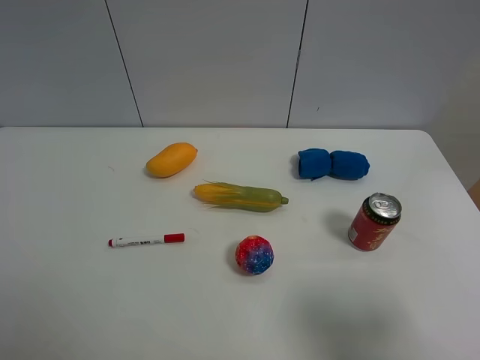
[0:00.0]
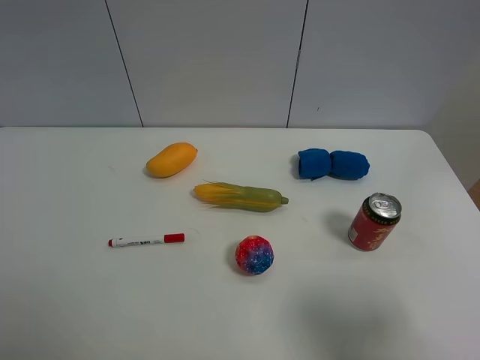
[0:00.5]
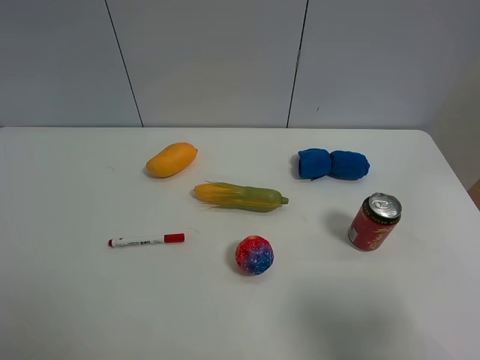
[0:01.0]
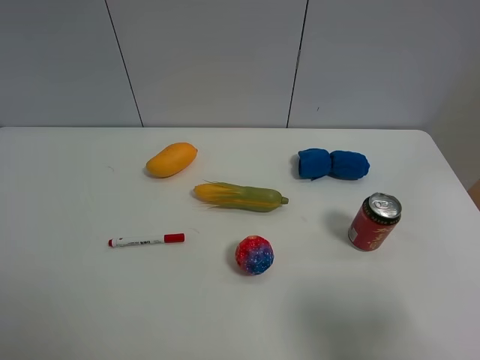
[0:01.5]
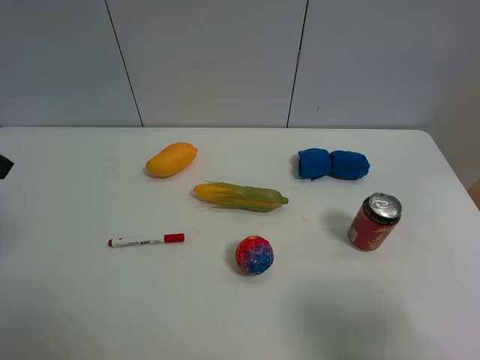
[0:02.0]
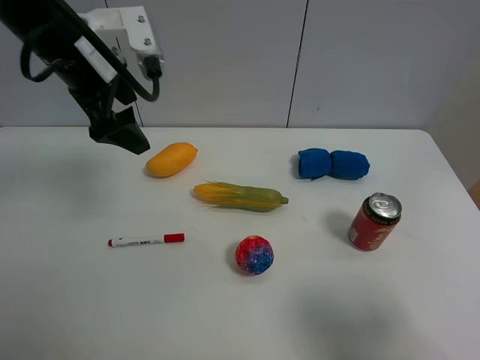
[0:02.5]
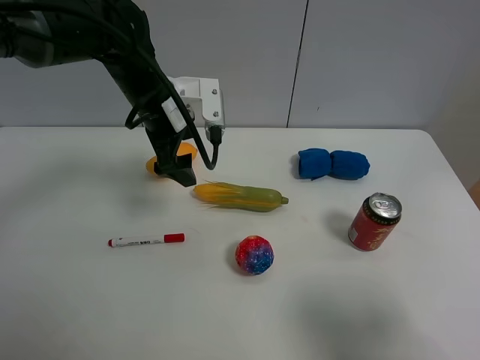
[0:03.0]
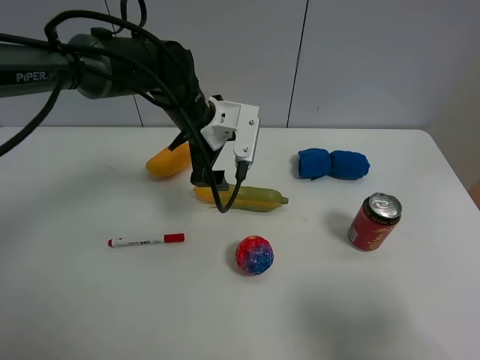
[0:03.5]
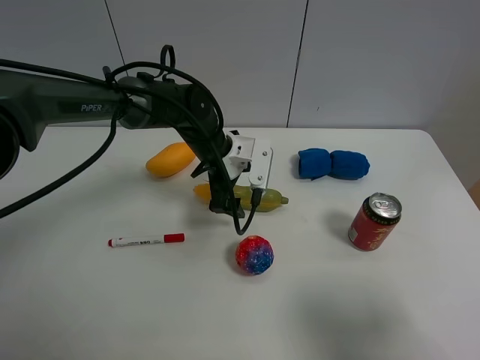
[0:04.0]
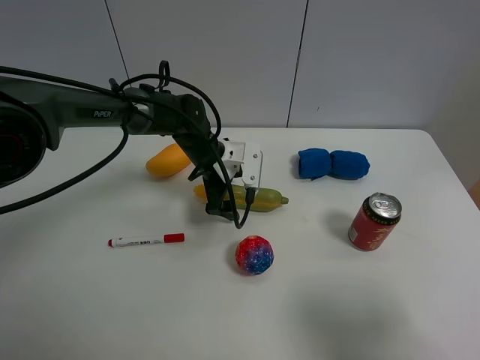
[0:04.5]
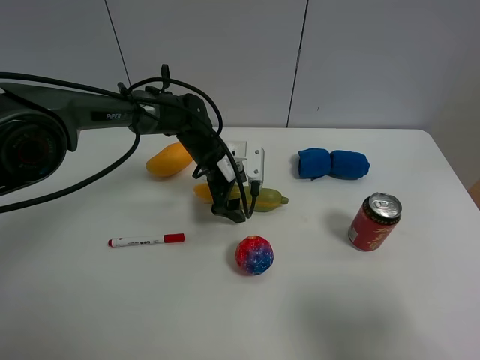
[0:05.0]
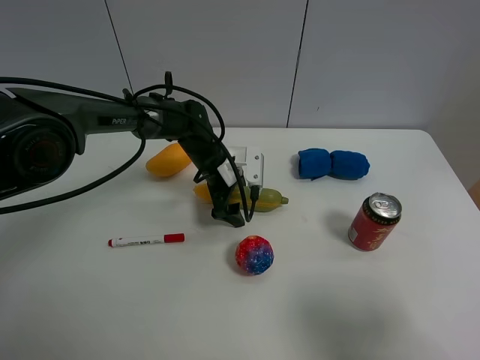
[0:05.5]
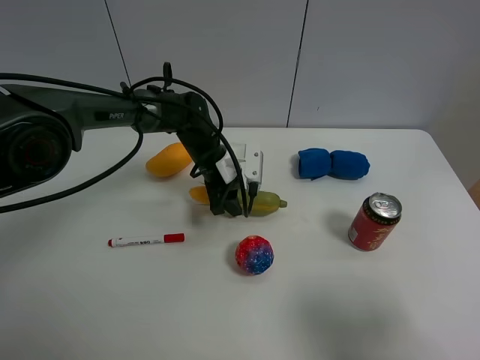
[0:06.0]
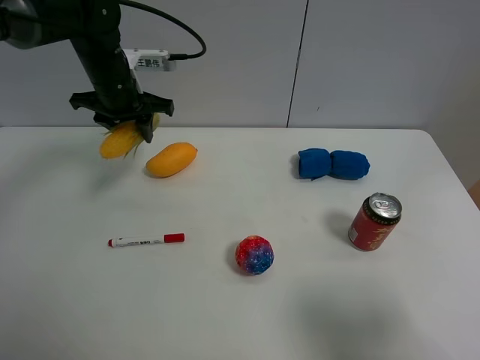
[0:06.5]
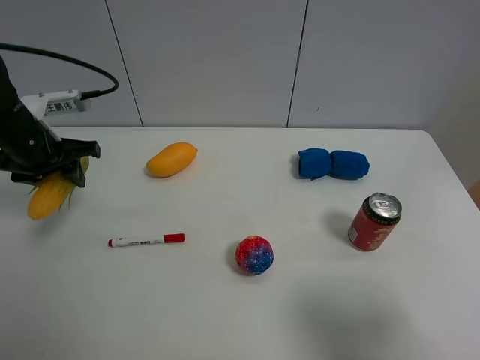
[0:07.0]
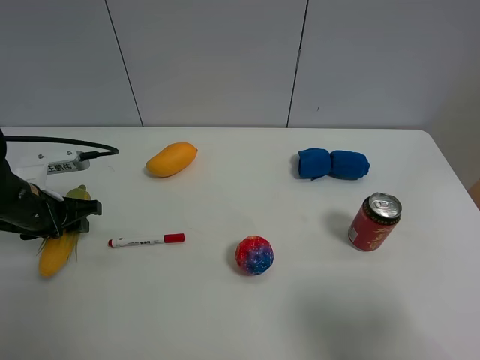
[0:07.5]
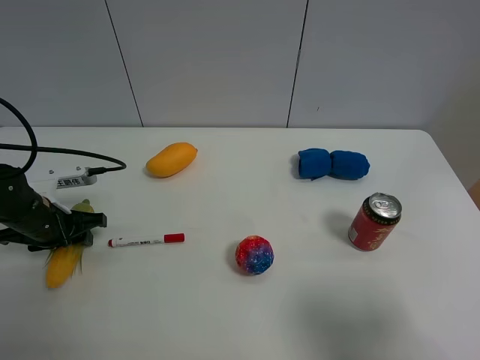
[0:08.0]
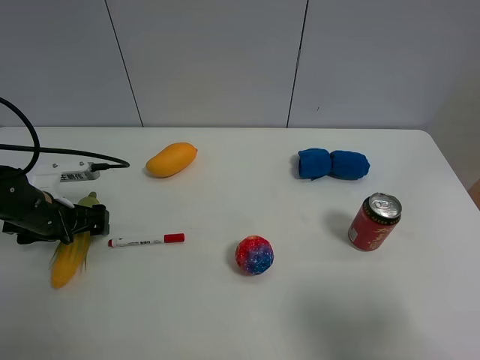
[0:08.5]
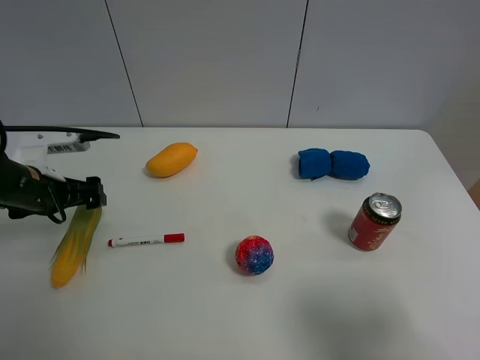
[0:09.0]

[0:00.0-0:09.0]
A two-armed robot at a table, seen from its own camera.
Task of the whole recording: the gripper move the object.
Step, 0:00.0 to 0:05.5: Grasp the corn with the left gripper.
Step, 0:06.0 to 0:08.5: Place the corn on the table with the left gripper.
0:02.0 to 0:04.5: The left gripper moves downward, to the right and forward, some 40 cm.
0:04.5 to 0:07.0: The left gripper heads to the left, covering approximately 25 cm, and closes.
0:07.0 to 0:09.0: The left gripper opens.

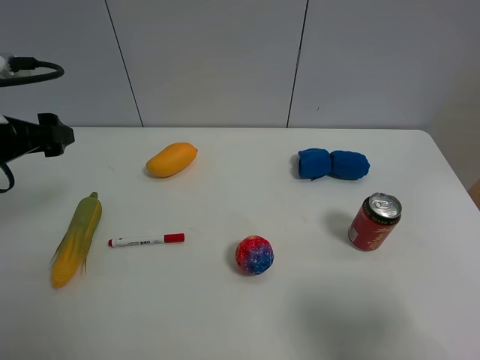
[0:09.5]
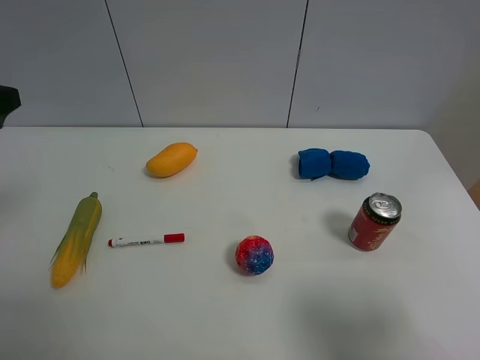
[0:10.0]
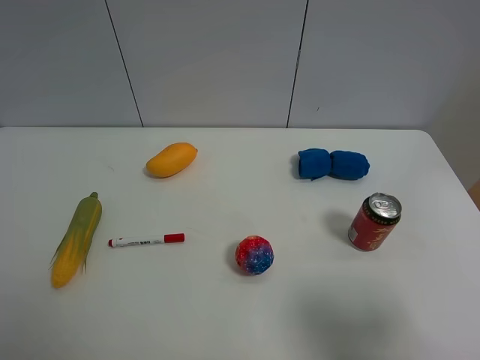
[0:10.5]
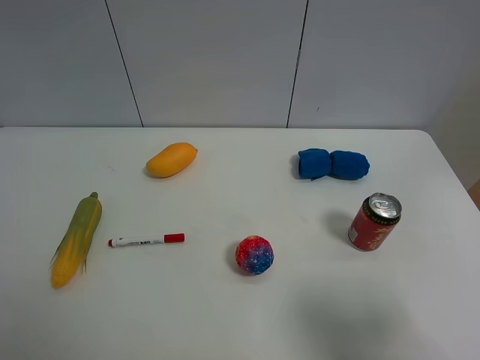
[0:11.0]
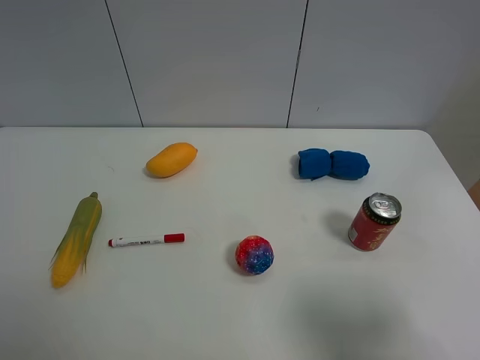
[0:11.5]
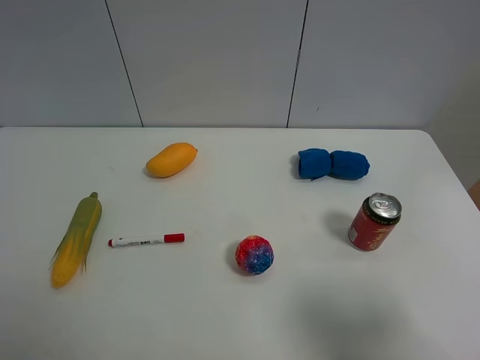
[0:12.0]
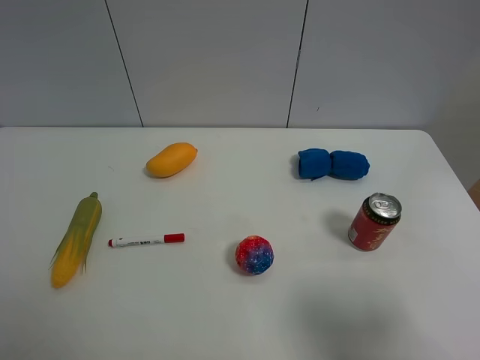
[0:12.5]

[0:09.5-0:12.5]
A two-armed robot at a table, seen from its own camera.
Task of the whole recording: the gripper move the object.
0:09.5 to 0:11.0: The left gripper heads backward, covering roughly 25 cm.

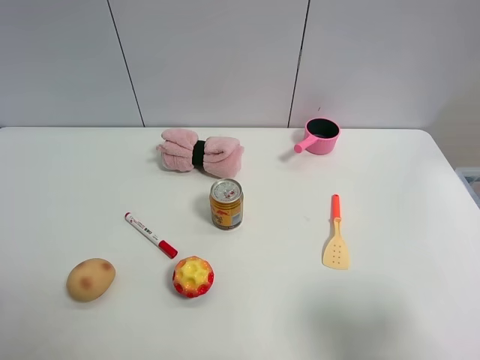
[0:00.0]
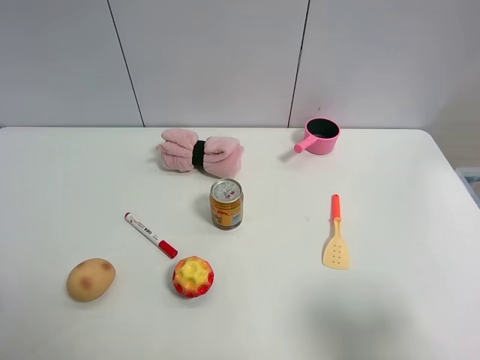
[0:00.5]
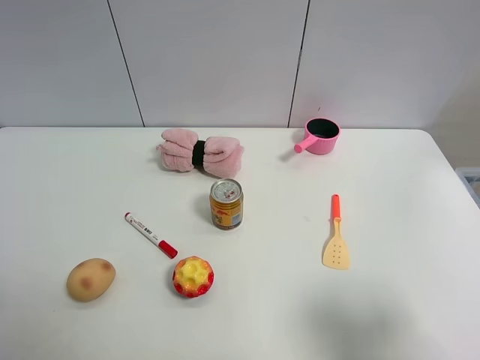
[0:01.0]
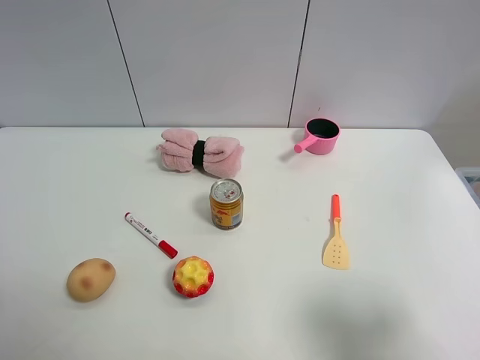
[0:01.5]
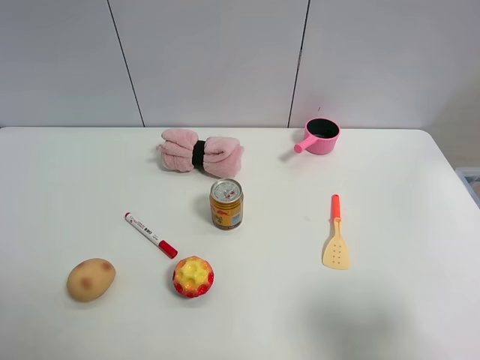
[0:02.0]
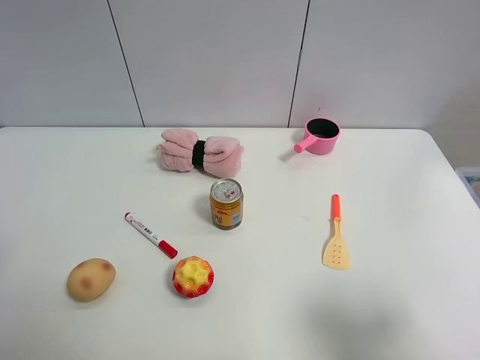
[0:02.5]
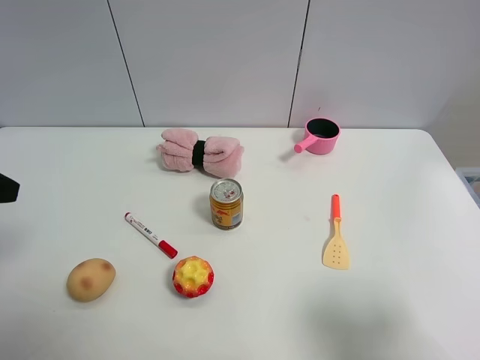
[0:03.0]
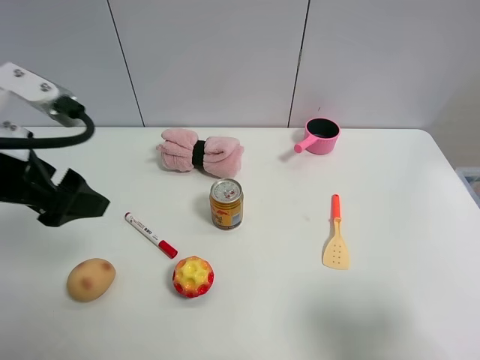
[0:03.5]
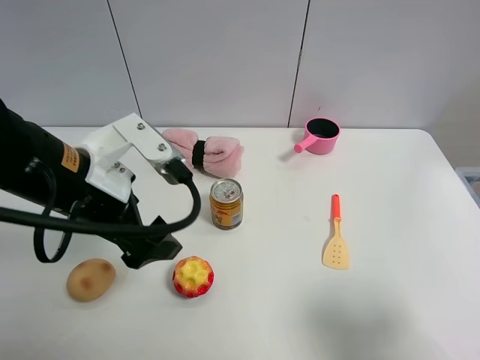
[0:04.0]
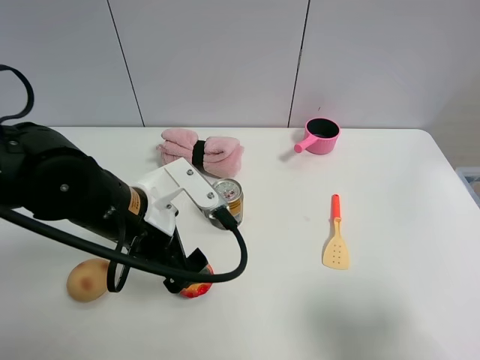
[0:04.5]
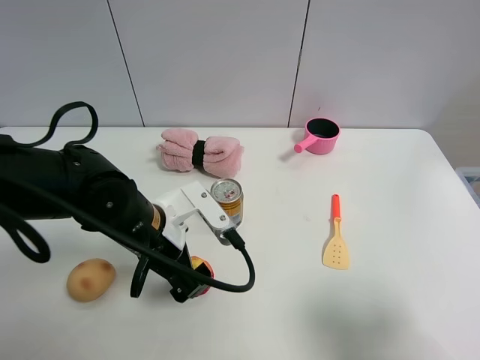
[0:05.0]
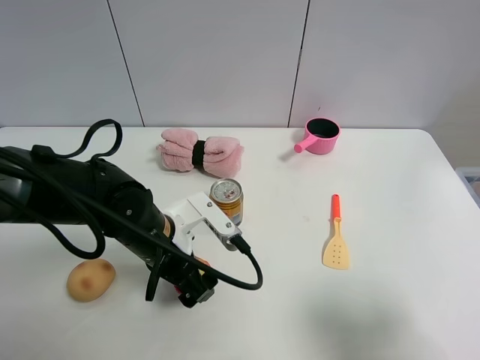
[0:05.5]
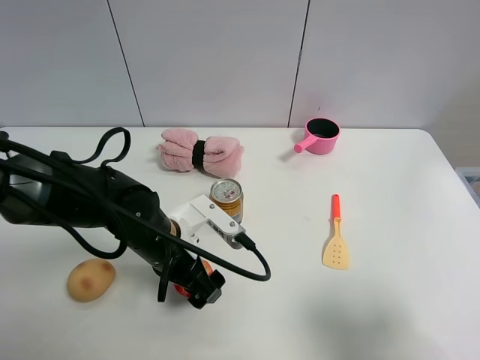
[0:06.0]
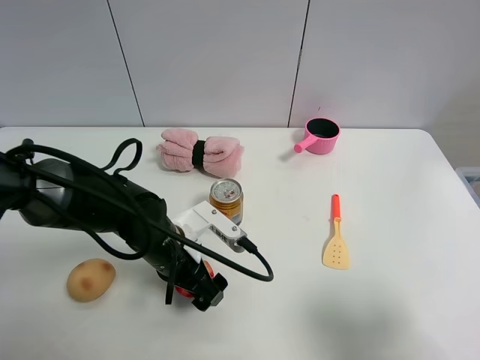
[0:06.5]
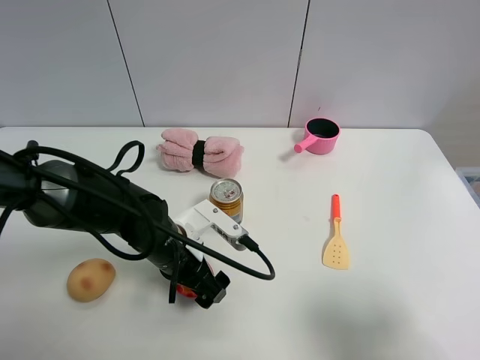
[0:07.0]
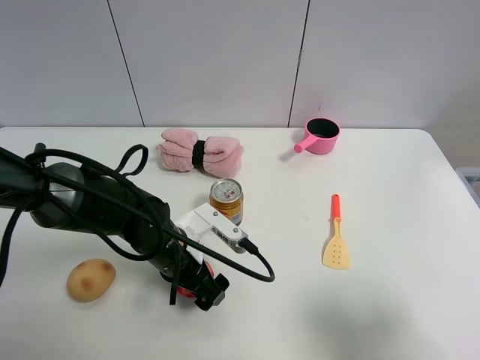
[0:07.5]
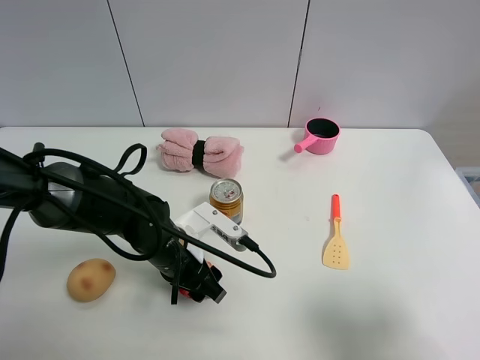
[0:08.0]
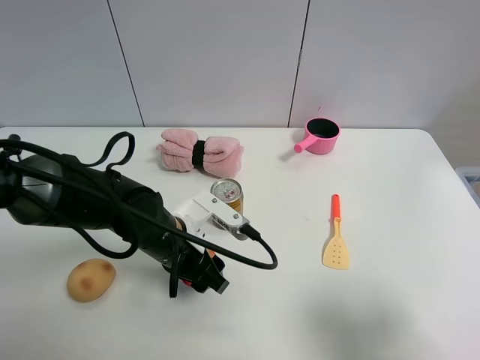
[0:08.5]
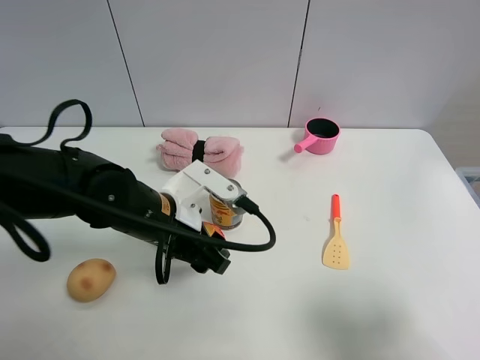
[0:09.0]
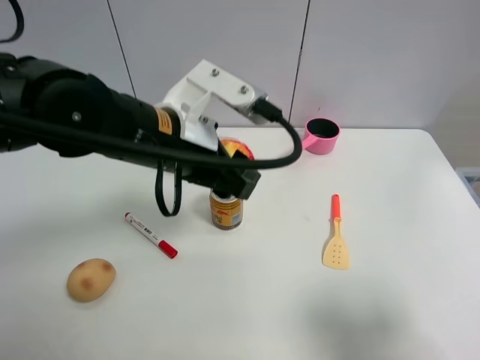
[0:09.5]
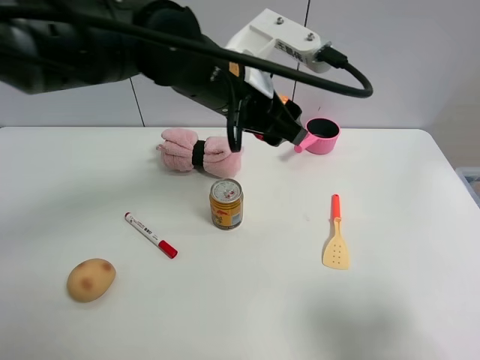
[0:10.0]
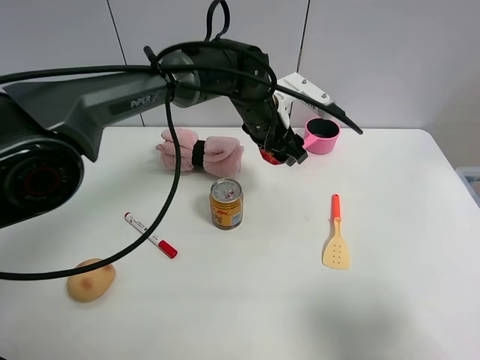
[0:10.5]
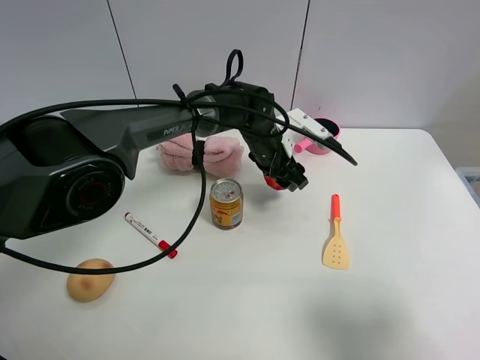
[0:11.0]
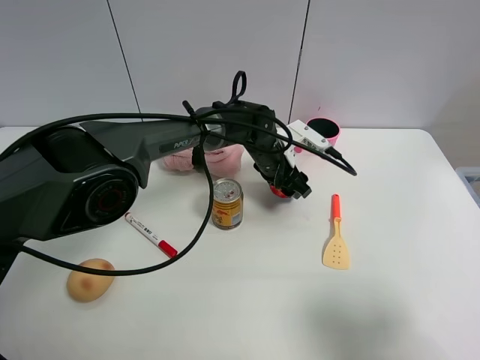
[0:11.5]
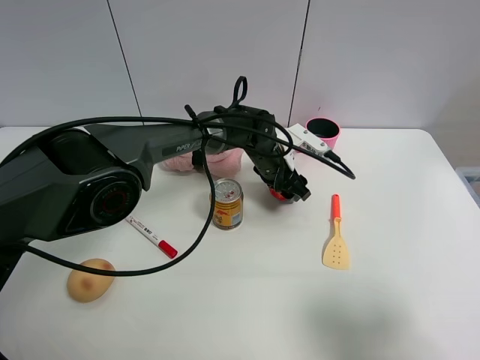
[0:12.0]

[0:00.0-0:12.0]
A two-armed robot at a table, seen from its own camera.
Task of the whole recording: the gripper move the object.
Step, 0:00.0 to 0:07.5: Grasp the colorful ball with the left gripper.
0:00.0 to 0:02.0: Both grippers stay about where they are.
0:02.0 to 0:04.0: The left gripper heads forward and to the right, covering some 25 cm.
0:04.0 to 0:06.0: The left gripper goes some 15 cm downward.
0:06.0 to 0:08.0: The left gripper closes its fingers.
0:08.0 to 0:10.0: The left gripper heads upward, to the right and forward, covering some 25 cm.
0:10.0 to 0:12.0: The left gripper travels downward and forward by approximately 20 cm.

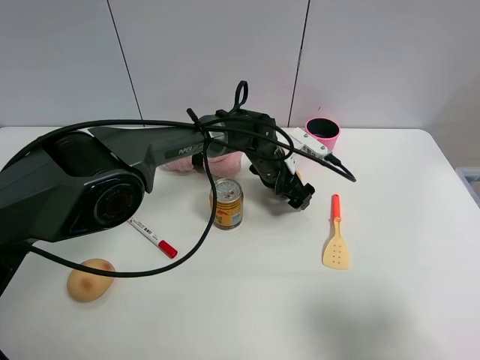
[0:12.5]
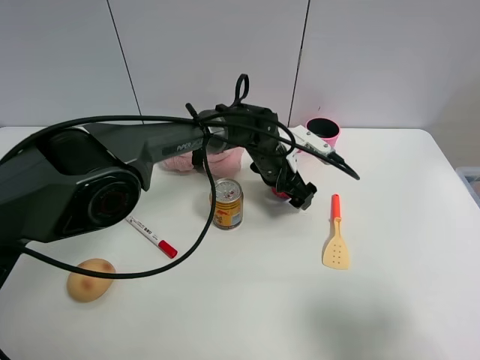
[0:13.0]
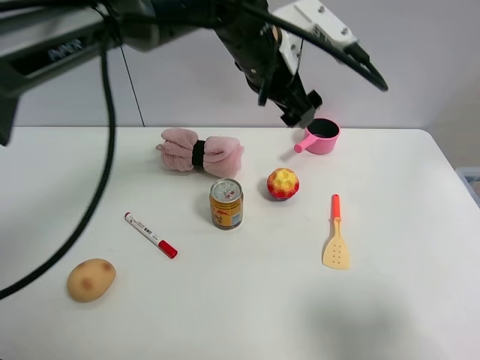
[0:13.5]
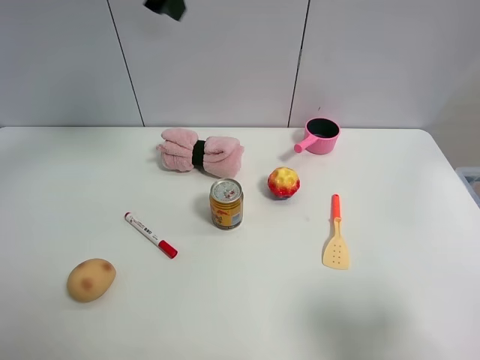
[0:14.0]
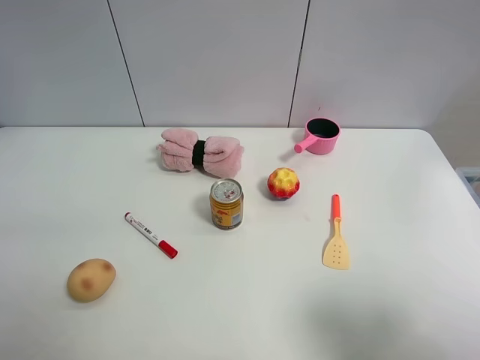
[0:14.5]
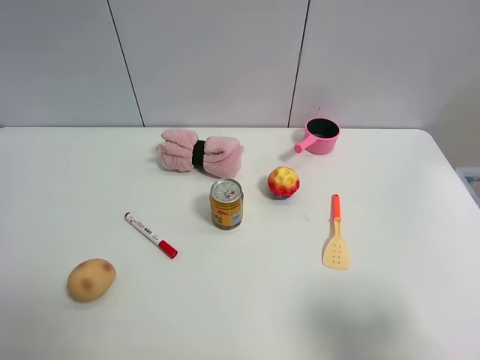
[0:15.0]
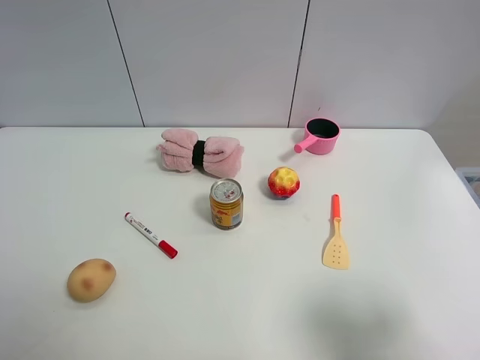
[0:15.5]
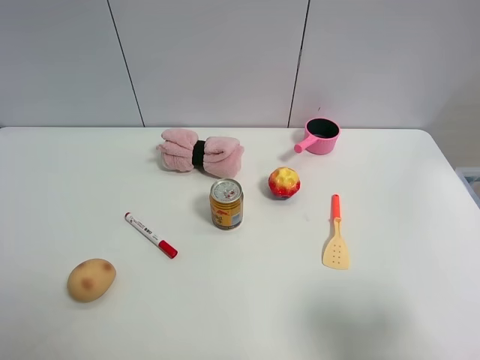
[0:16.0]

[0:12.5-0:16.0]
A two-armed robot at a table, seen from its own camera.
Task of the whole recording: the gripper move the object.
0:12.5 to 0:14.5: The left gripper travels to the left and upward by some 60 cm.
